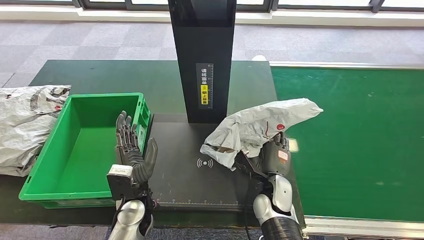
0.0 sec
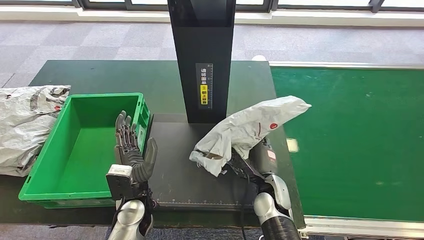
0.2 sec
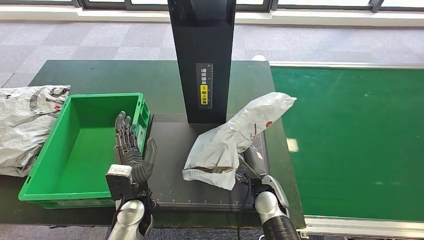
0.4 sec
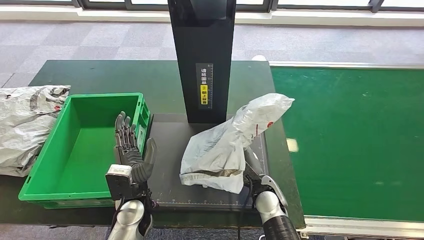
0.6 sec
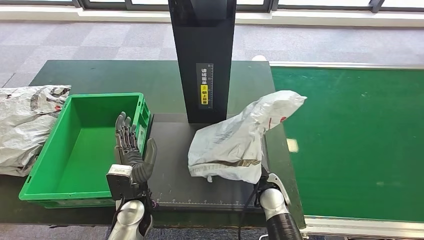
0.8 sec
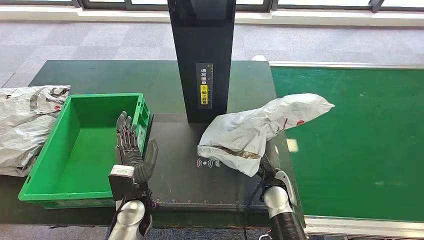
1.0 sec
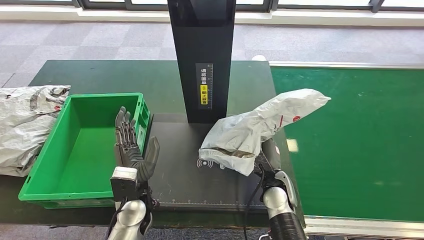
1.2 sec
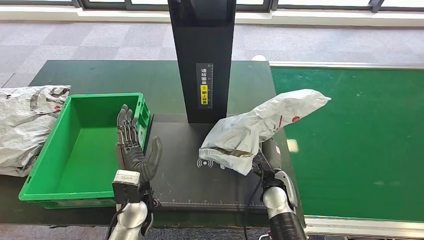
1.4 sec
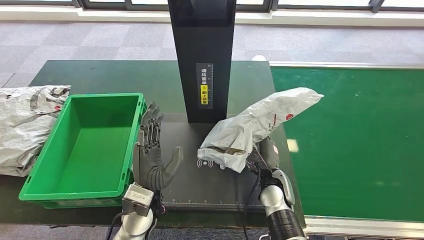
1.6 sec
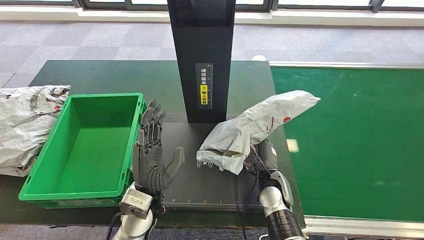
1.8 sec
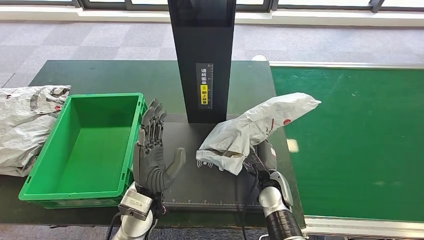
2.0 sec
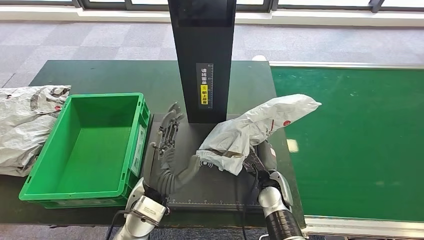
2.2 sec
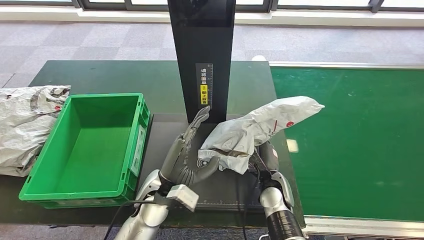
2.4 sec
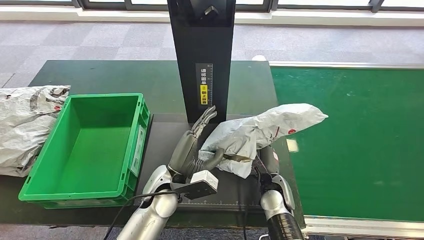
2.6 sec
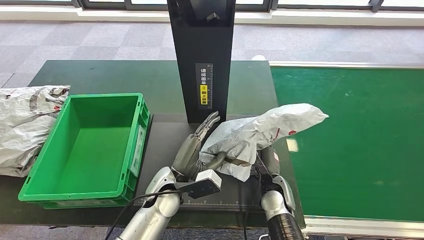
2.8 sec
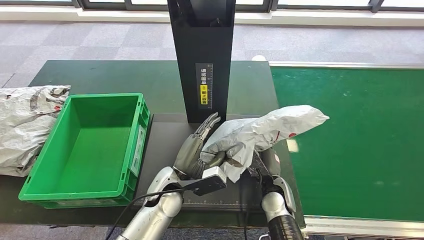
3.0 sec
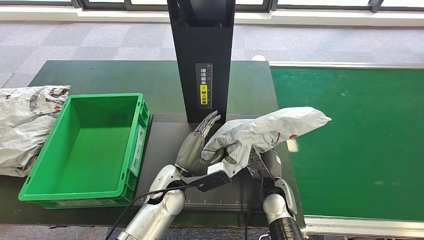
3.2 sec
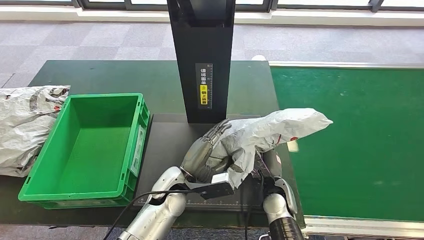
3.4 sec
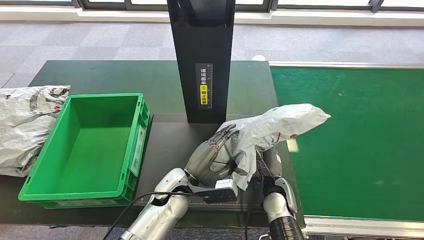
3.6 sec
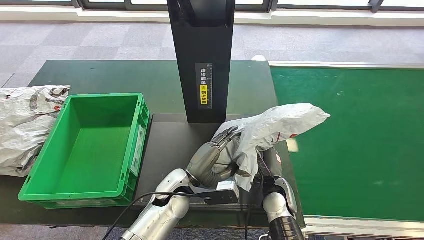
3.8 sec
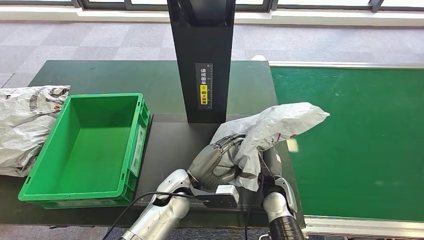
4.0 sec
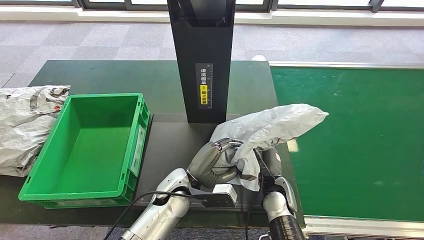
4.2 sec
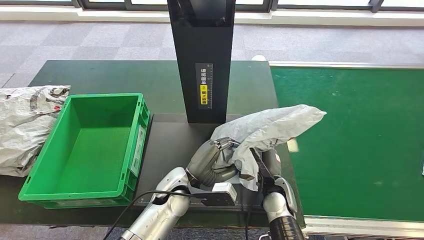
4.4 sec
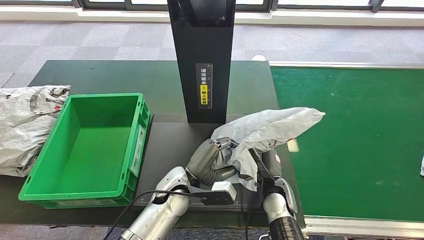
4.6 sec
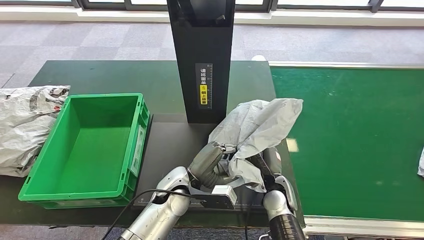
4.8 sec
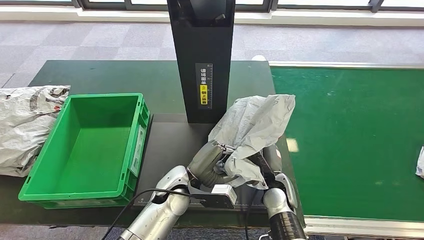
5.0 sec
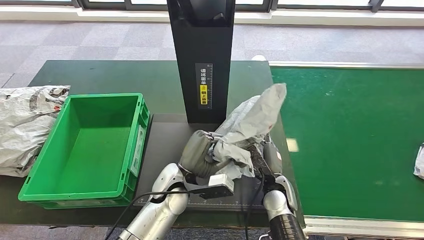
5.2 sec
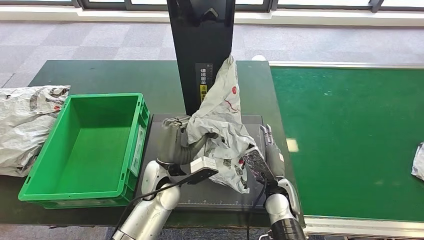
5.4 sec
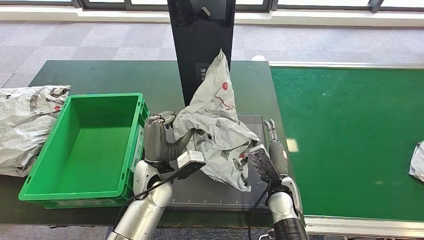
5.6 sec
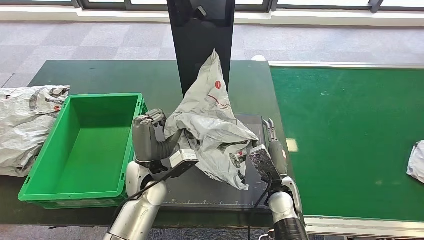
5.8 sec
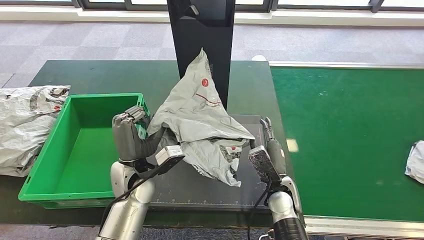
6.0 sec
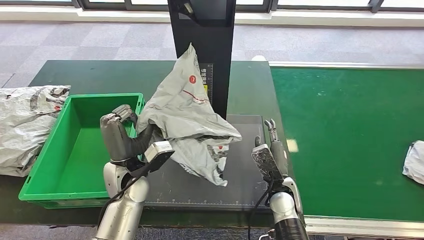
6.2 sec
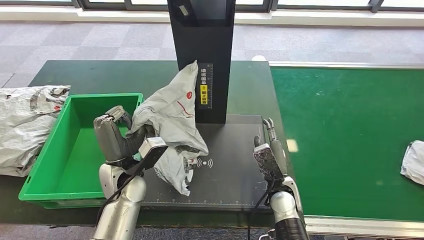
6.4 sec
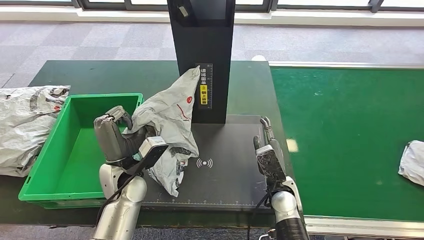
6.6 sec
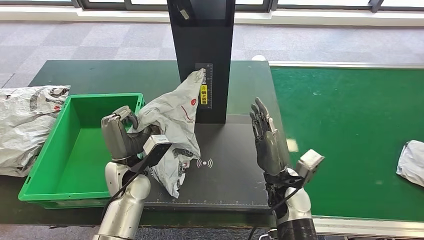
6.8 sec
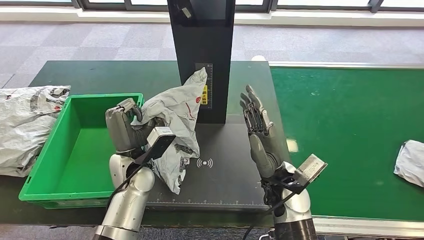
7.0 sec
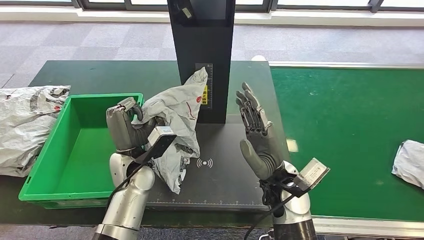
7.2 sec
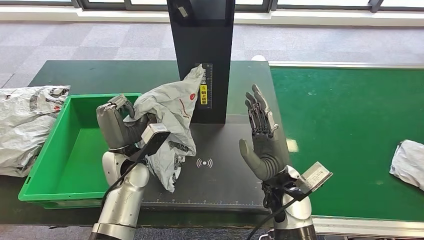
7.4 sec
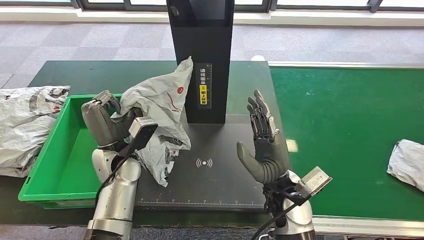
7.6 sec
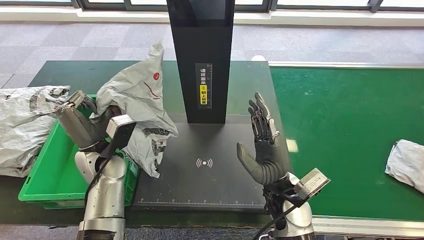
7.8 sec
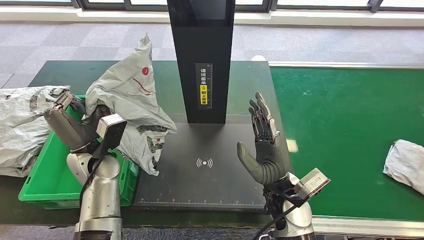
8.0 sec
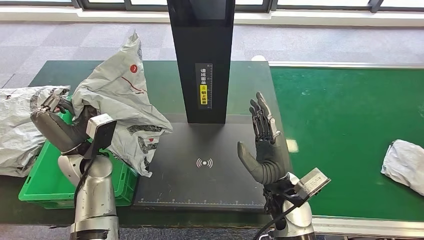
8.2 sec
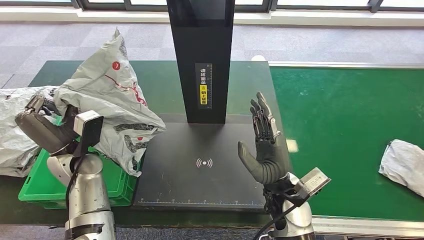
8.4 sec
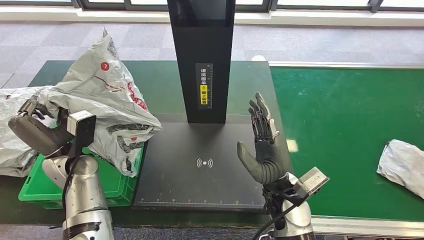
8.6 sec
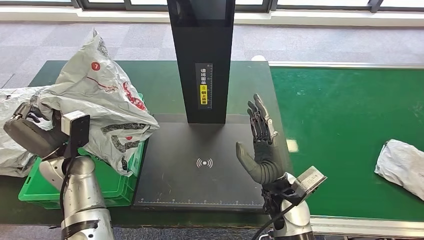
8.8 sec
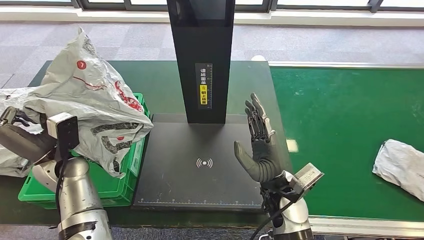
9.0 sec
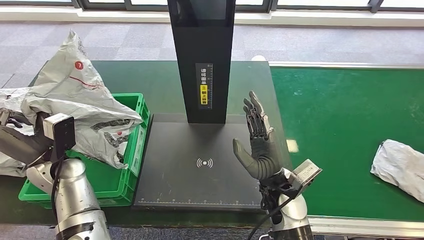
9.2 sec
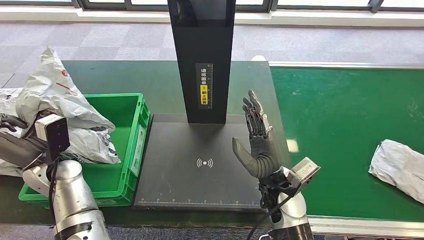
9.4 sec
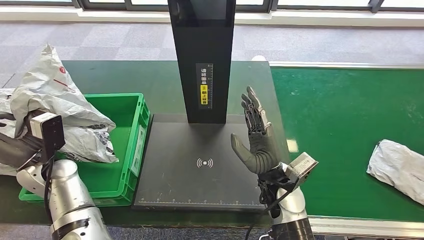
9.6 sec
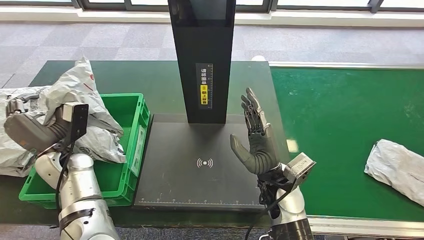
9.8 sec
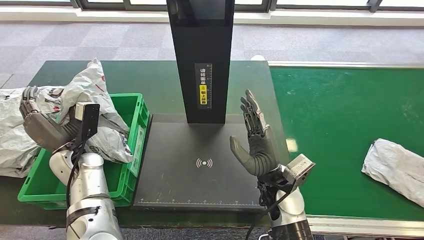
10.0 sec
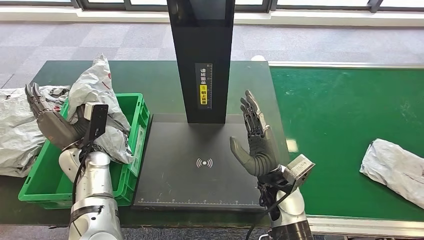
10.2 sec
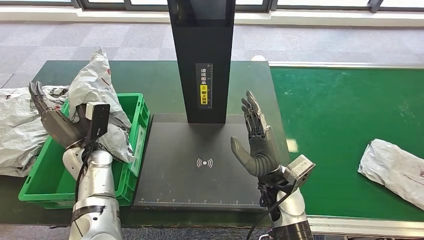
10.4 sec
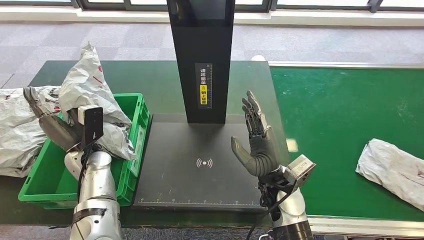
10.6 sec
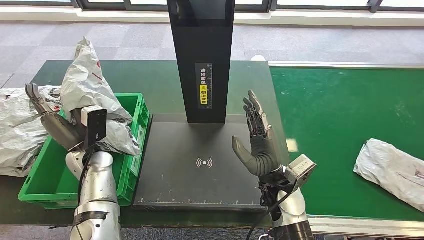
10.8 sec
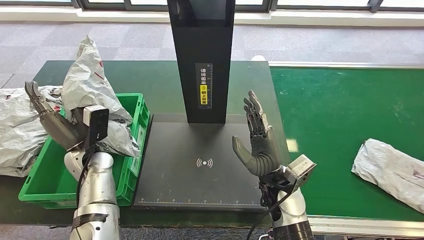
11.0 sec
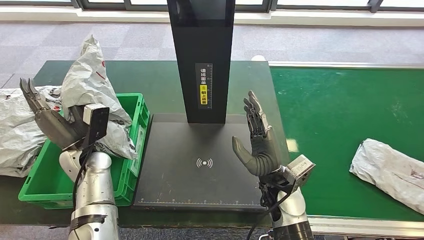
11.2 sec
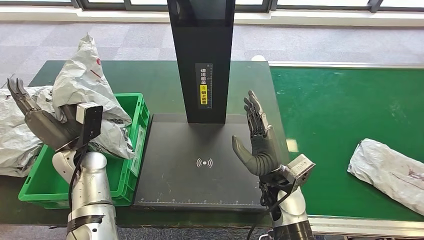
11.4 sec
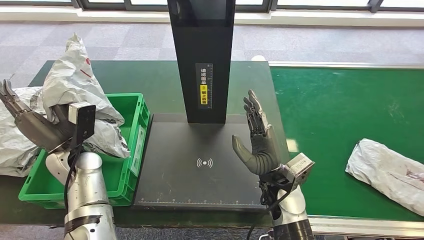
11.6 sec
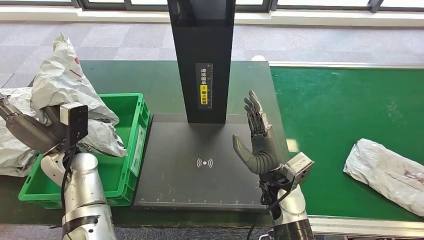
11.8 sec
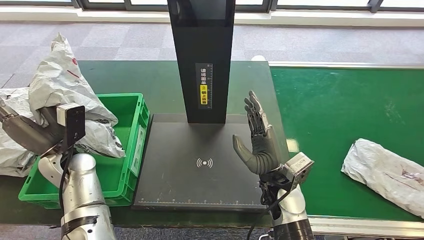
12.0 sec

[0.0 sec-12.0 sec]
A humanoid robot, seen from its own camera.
Step, 0.0 sec to 2.8 sec: Place the parcel onto the inbound machine.
Step, 3.0 sec to 8.8 sec: Pick up the parcel from the inbound machine.
0.0 sec to 1.6 sec: The left hand shifts by some 5 cm.
1.6 sec to 3.0 sec: The left hand moves roughly 5 cm.
3.0 sec to 4.4 sec: The hands stay close to where they were, moving slightly.
10.4 sec to 12.0 sec: The hands move only a little.

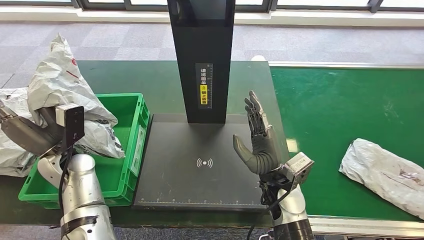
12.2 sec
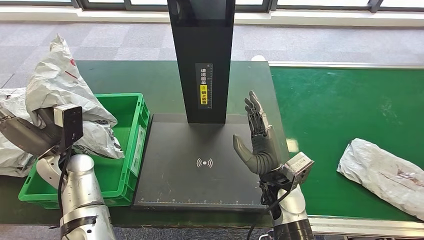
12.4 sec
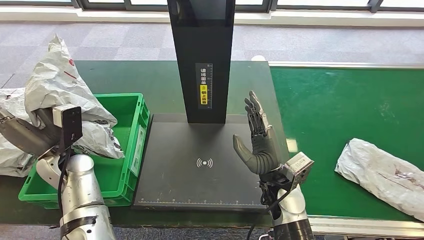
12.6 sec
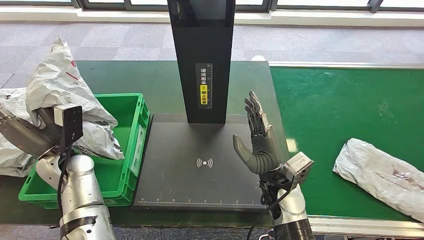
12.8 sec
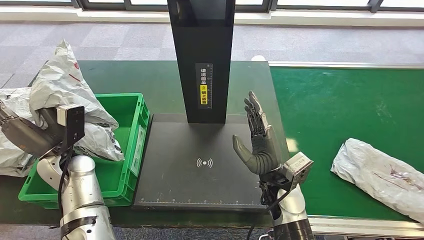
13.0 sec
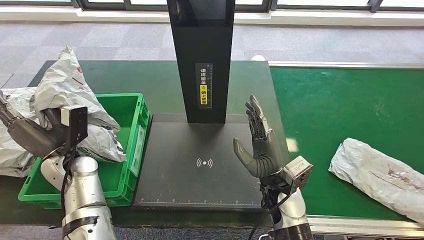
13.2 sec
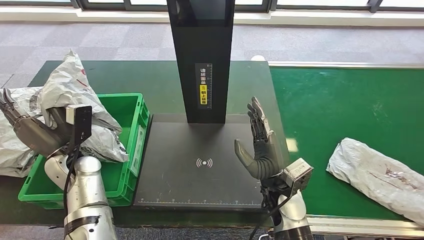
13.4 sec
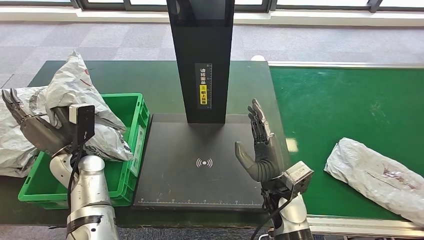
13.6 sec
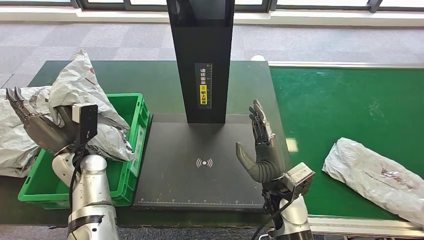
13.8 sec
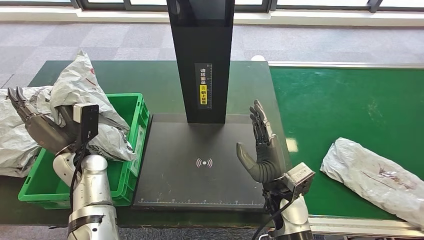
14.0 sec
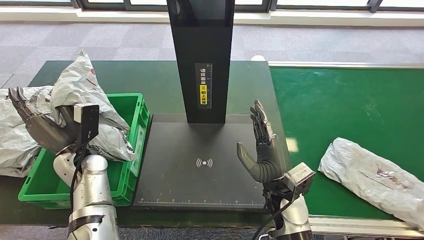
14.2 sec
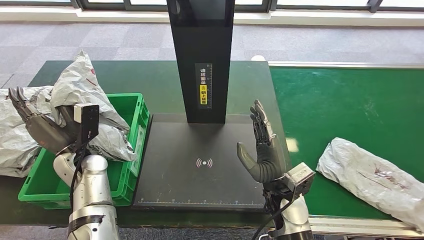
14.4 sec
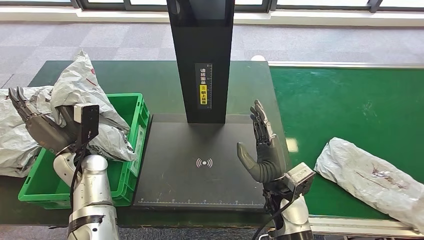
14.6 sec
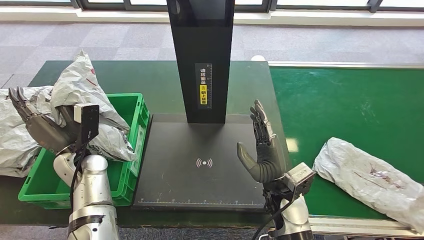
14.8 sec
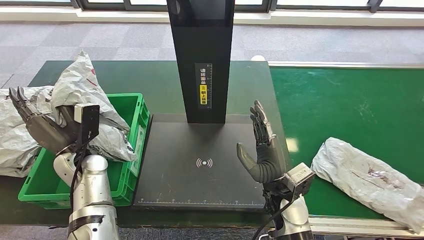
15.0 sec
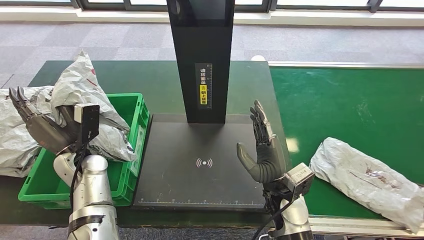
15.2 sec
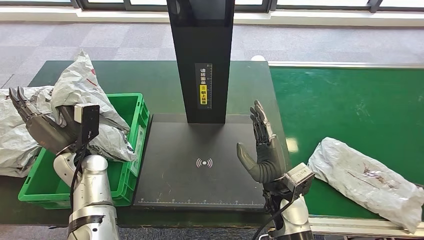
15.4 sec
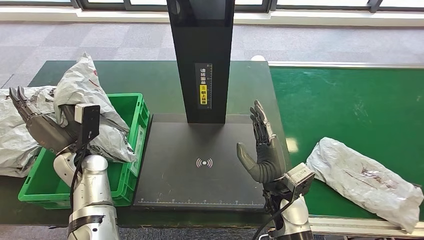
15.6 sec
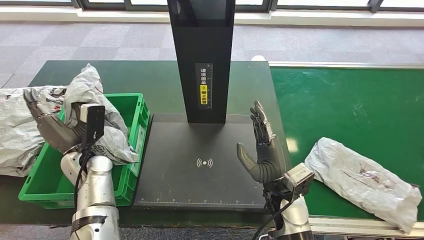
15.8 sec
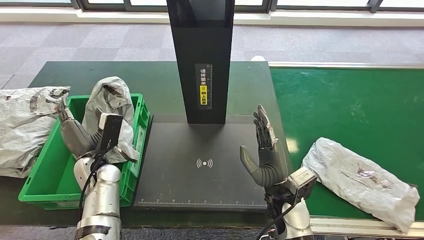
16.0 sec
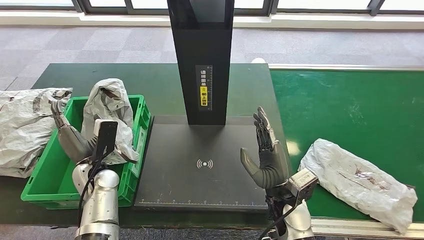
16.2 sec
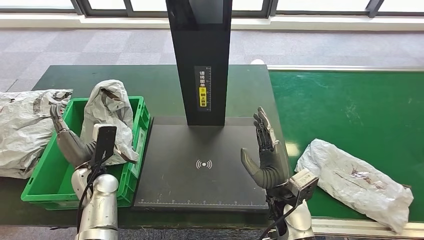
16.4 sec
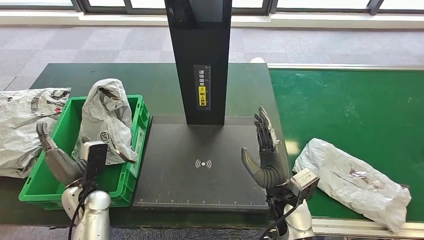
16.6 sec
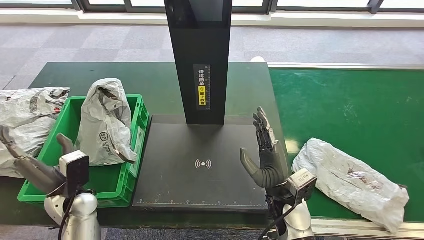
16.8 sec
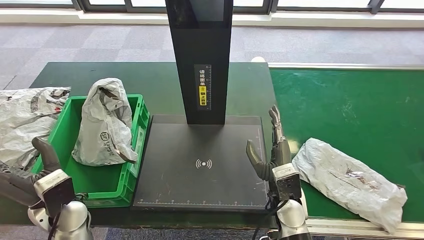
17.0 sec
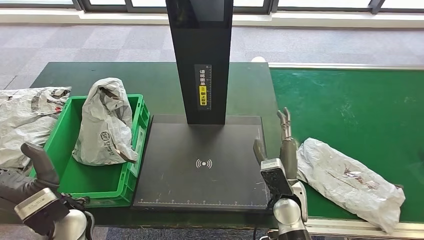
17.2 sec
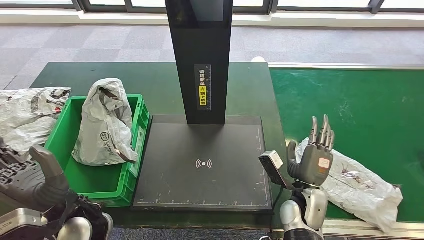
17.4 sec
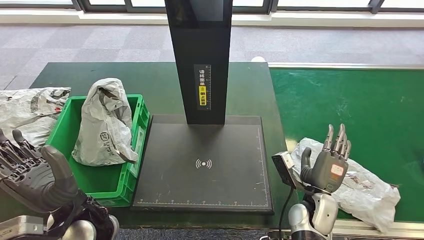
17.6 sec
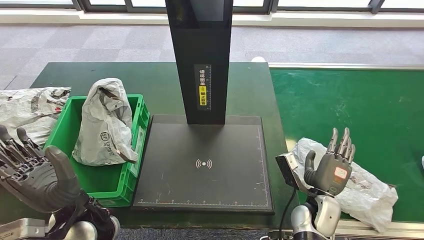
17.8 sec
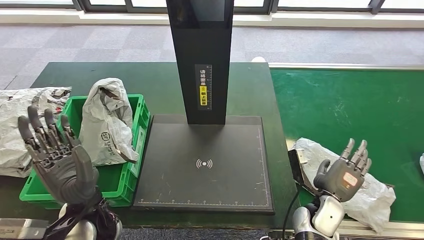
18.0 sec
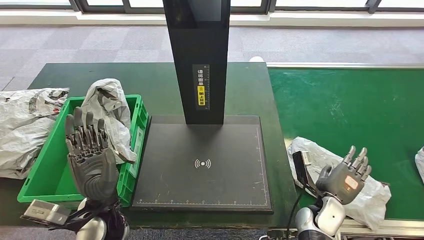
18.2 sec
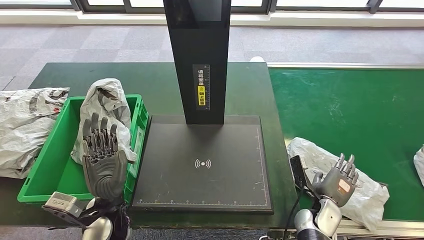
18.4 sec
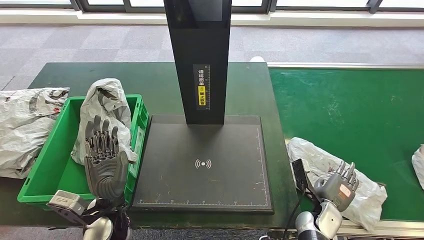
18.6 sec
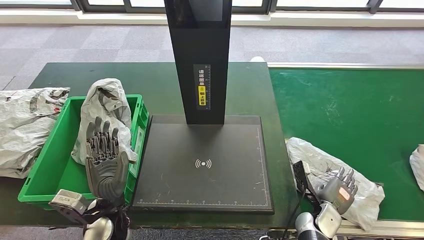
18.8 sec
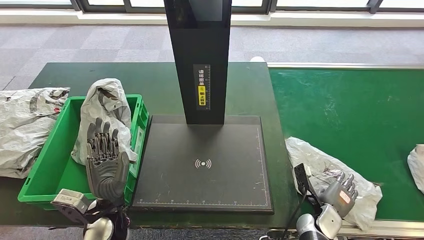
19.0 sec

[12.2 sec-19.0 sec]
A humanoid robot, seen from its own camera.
Step, 12.2 sec to 18.6 sec: Put the parcel inside the courier box.
12.2 sec to 13.6 sec: There are only small adjustments of the hands.
13.6 sec to 15.0 sec: Both hands stay about where they are.
17.6 sec to 19.0 sec: The left hand heads downward, covering roughly 5 cm; the right hand is displaced downward and to the right by approximately 10 cm.
